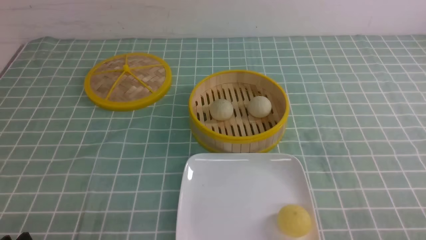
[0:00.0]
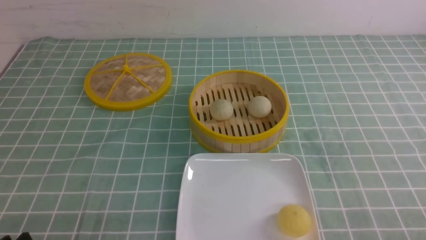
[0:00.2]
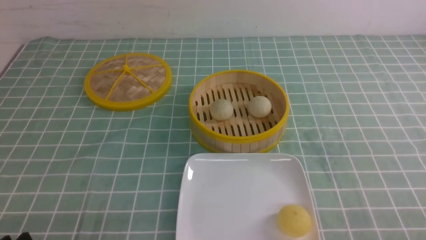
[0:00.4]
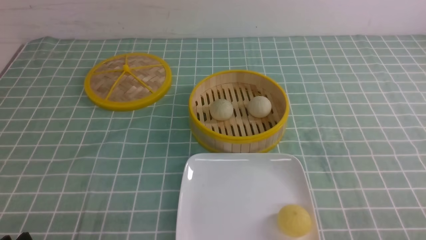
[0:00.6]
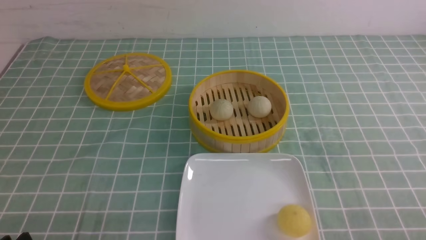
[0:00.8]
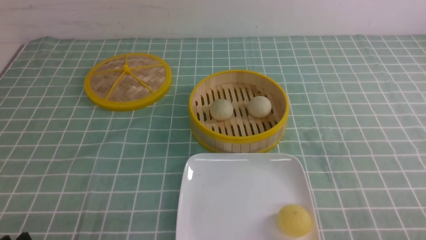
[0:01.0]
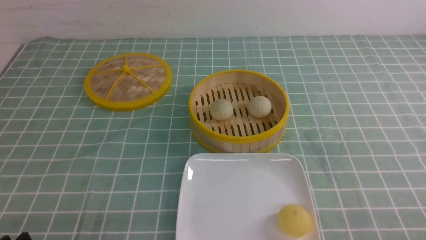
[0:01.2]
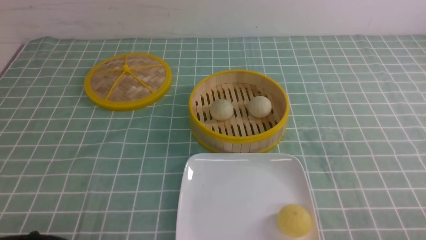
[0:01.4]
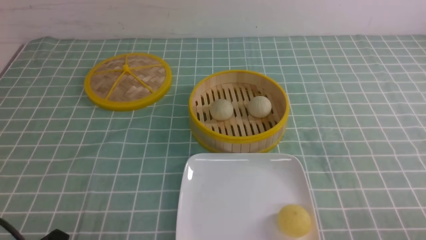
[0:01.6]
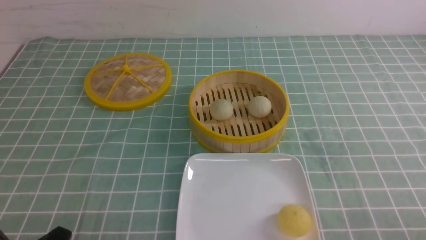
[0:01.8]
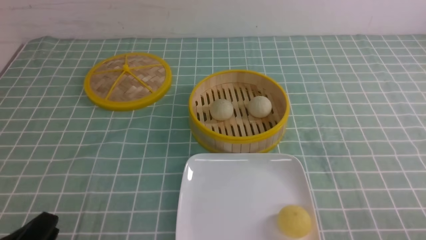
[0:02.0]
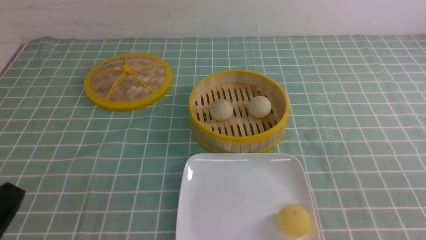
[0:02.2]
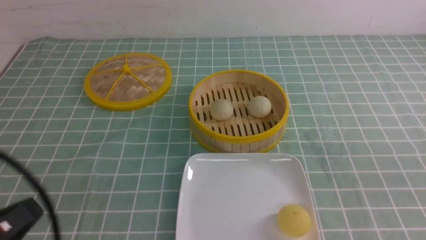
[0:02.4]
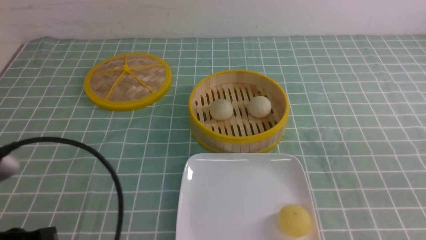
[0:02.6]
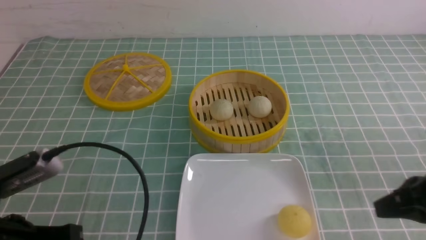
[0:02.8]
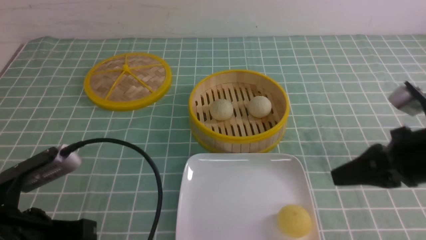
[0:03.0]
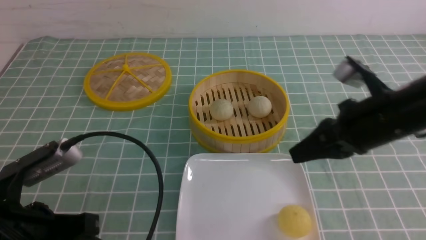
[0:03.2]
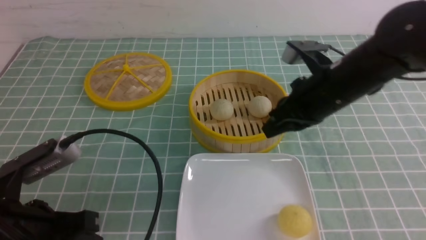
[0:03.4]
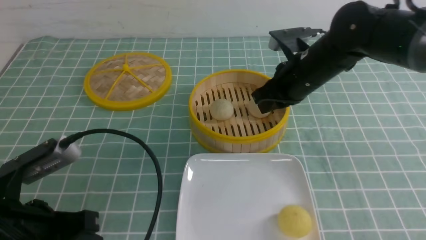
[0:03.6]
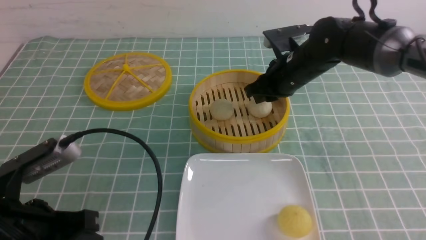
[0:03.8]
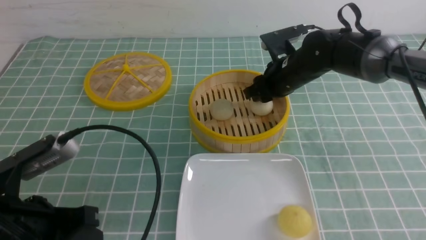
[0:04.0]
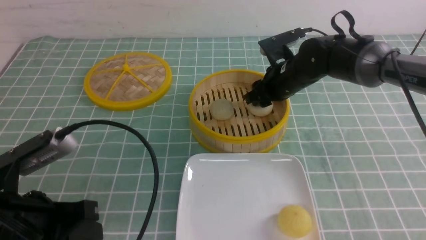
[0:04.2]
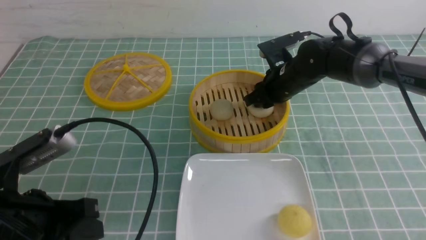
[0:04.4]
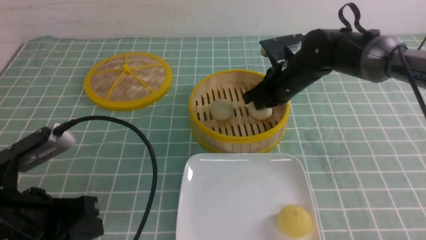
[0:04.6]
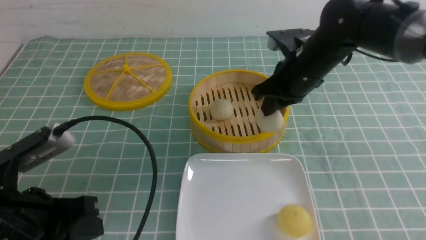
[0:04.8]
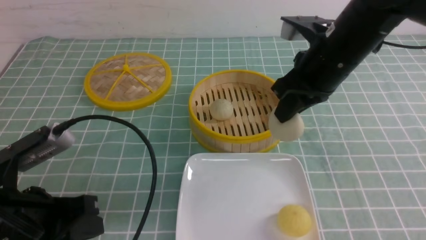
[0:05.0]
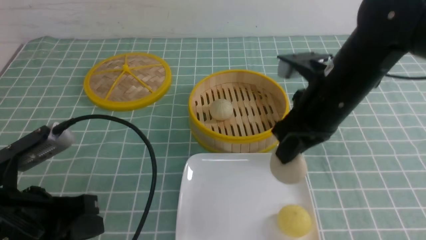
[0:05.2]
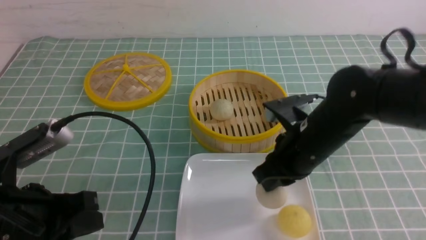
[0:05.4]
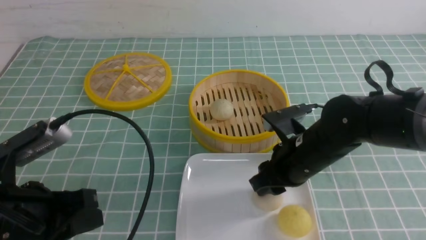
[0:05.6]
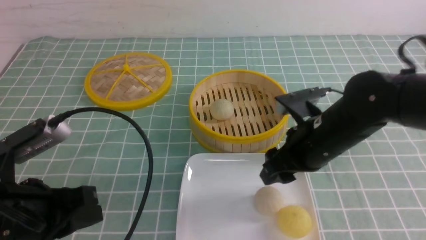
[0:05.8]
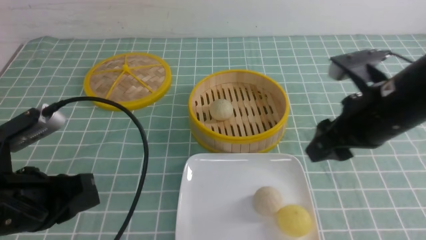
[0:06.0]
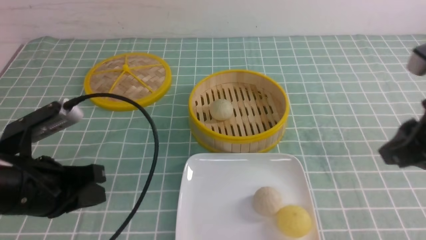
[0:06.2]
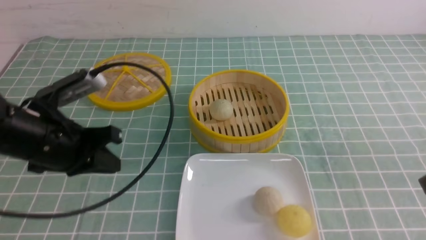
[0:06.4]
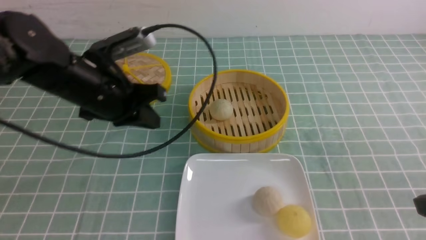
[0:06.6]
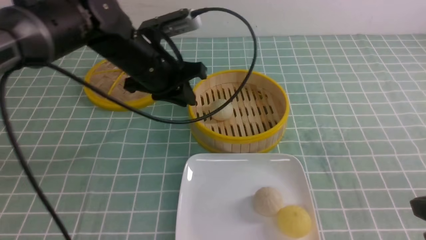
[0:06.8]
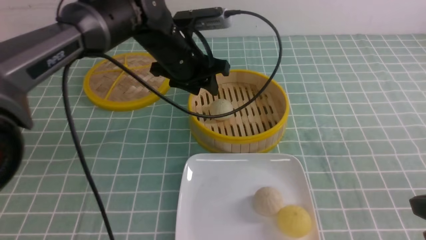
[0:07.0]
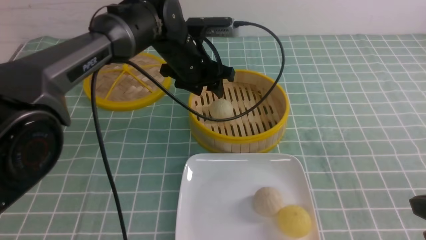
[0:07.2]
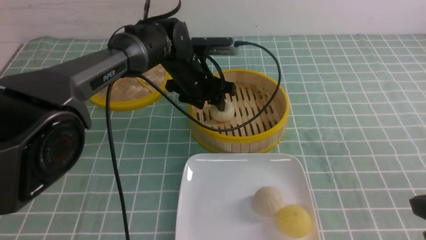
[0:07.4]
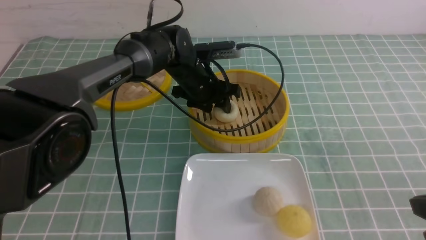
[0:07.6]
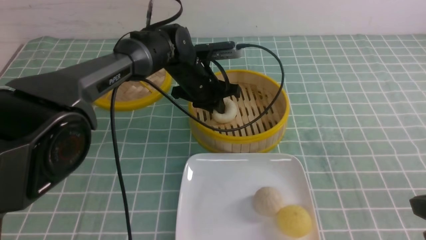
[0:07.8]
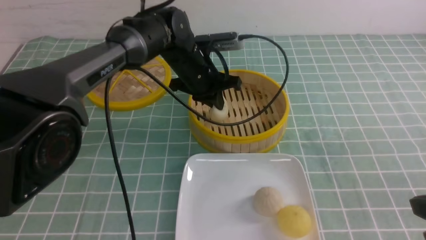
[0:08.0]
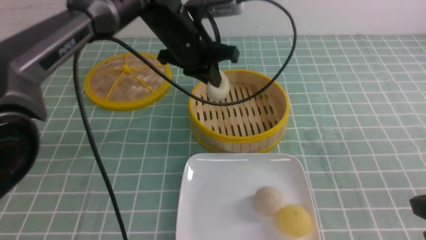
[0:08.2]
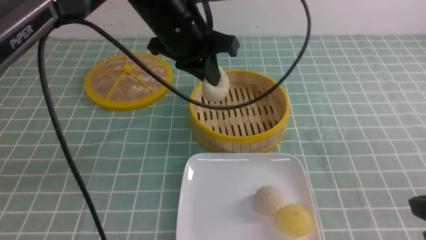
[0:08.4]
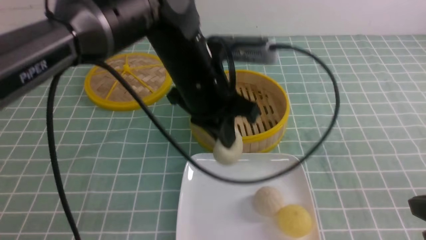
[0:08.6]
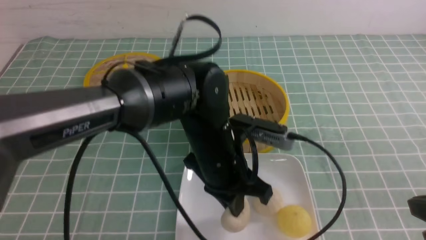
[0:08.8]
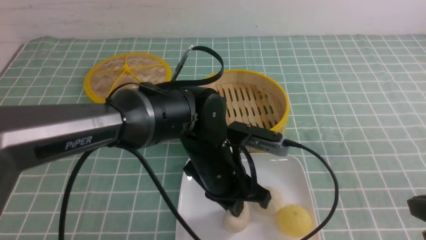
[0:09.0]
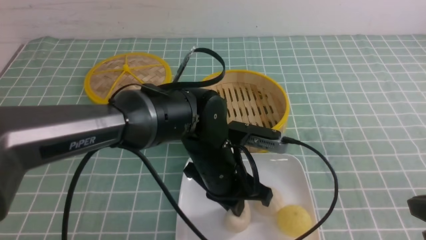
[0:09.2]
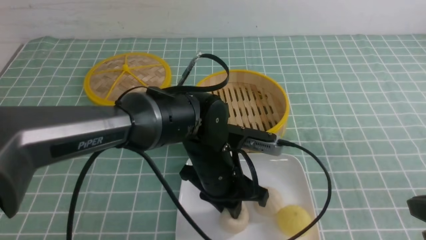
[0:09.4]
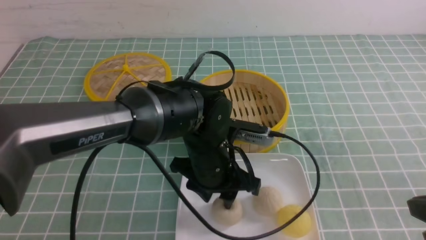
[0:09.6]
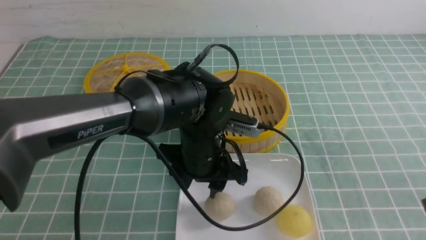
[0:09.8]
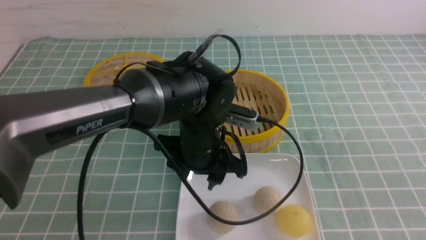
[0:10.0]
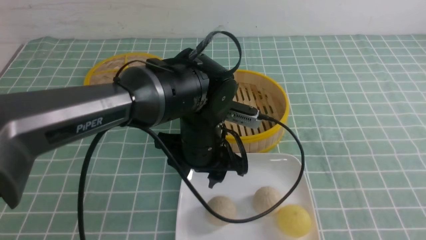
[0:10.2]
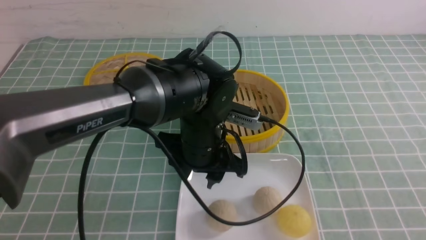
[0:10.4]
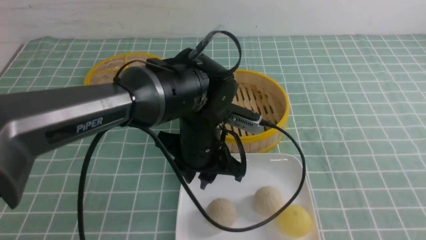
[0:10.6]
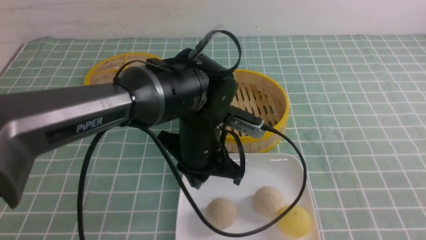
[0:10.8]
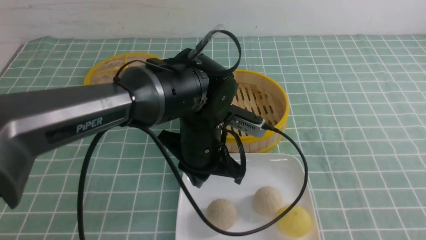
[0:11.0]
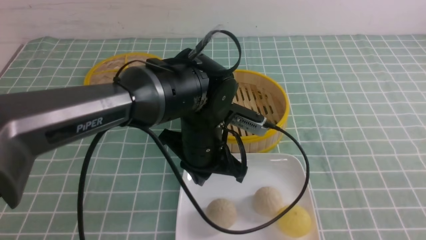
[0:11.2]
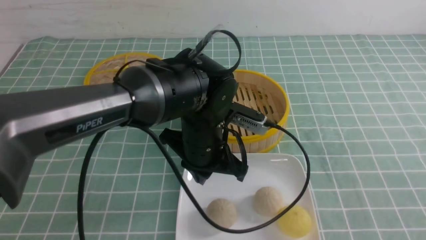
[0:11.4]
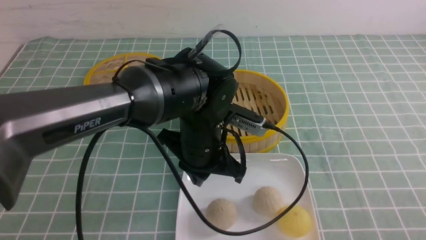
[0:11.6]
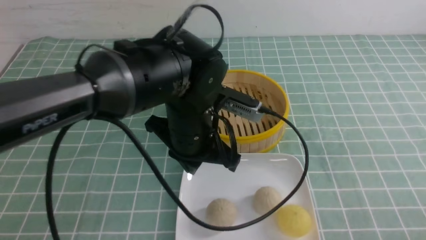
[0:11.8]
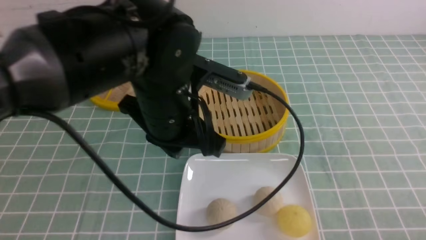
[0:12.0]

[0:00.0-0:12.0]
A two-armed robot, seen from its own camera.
Step, 0:00.0 to 0:04.6: use the right arm to grab the steamed stuffed bun that is closest to it.
Step, 0:04.8 to 0:05.6: use the right arm to put the steamed stuffed bun into the plate.
Step, 0:05.8 to 0:07.8: use the left arm to grab the steamed stuffed bun that is closest to it.
Step, 0:08.0 to 0:09.4: use the left arm to put the steamed stuffed bun into the plate.
0:01.6 to 0:03.0: The right gripper moves forward, upward and to the left, approximately 20 cm, and closes. The left gripper shifts approximately 10 cm upward and forward, and closes.
0:03.0 to 0:04.4: The right gripper moves forward and to the left, approximately 25 cm, and opens up.
0:04.4 to 0:06.0: The right gripper shifts approximately 20 cm backward and upward, and opens.
0:06.0 to 0:07.6: The left gripper is displaced forward and to the right by some 35 cm, and opens. The right gripper shifts some 15 cm backward and to the right, and closes.
0:07.6 to 0:09.0: The left gripper goes some 20 cm backward, and closes up.
0:09.0 to 0:10.4: The right gripper is displaced backward by approximately 10 cm, while the left gripper opens up.
0:10.4 to 0:12.0: The left gripper shifts roughly 10 cm upward, and closes; the right gripper shifts approximately 10 cm downward.

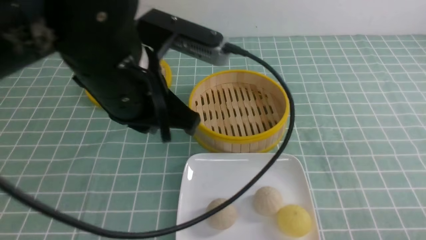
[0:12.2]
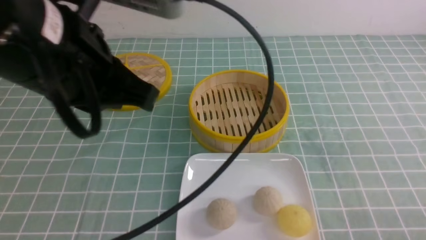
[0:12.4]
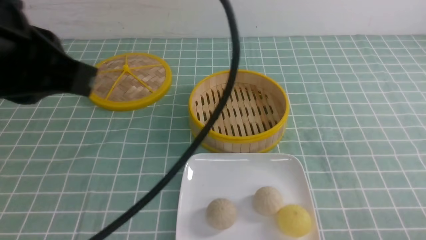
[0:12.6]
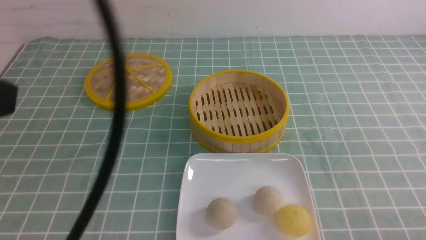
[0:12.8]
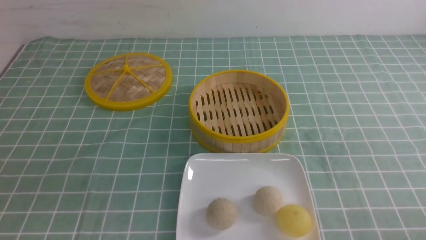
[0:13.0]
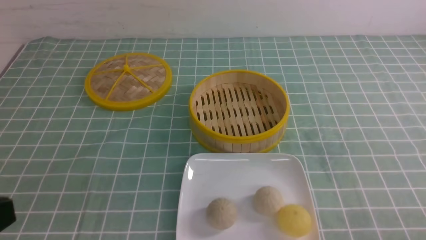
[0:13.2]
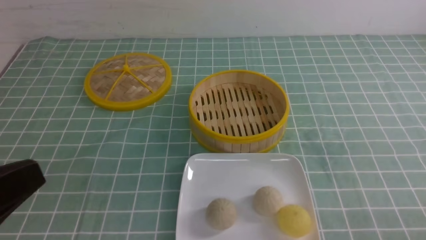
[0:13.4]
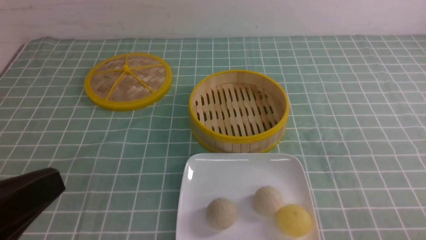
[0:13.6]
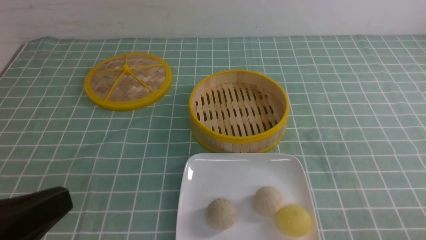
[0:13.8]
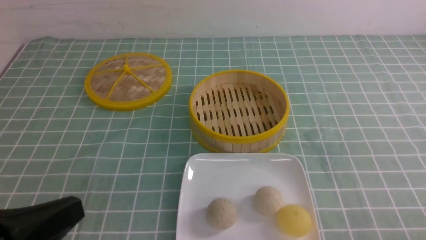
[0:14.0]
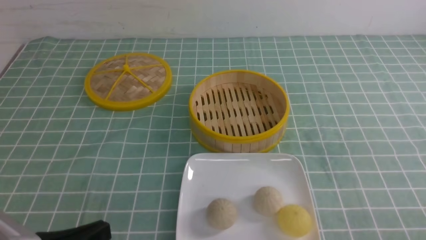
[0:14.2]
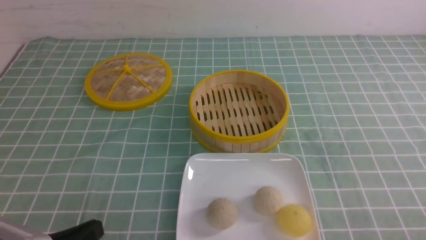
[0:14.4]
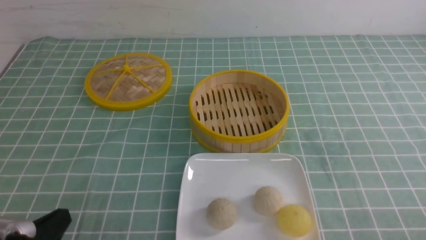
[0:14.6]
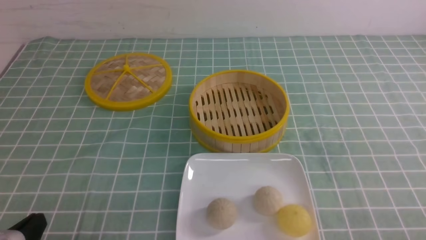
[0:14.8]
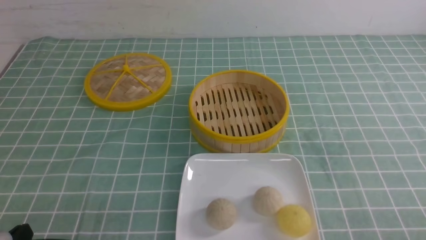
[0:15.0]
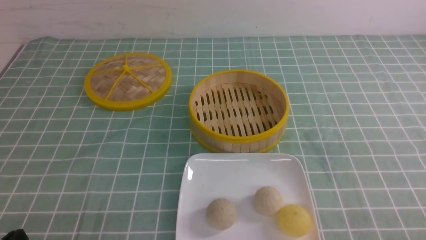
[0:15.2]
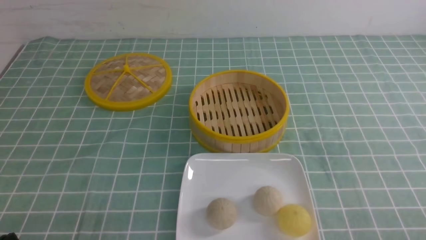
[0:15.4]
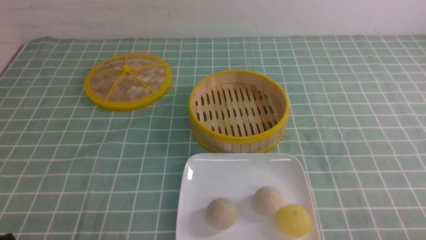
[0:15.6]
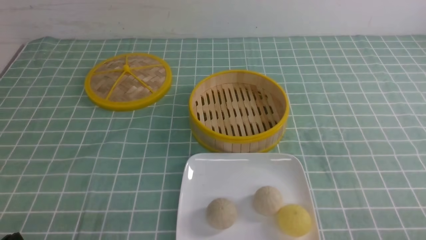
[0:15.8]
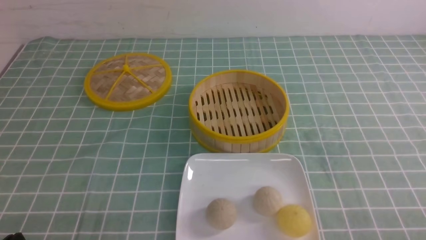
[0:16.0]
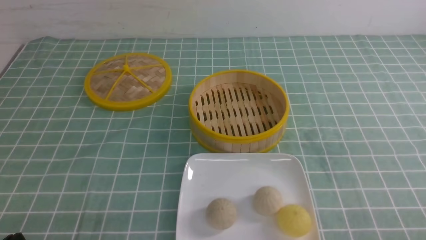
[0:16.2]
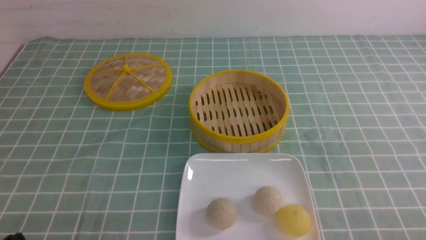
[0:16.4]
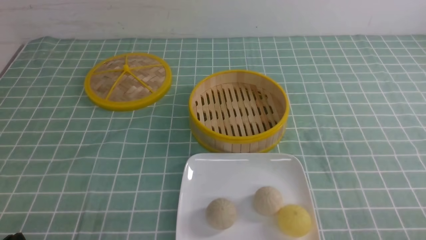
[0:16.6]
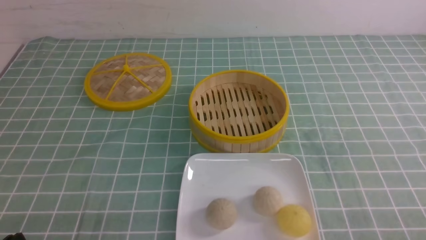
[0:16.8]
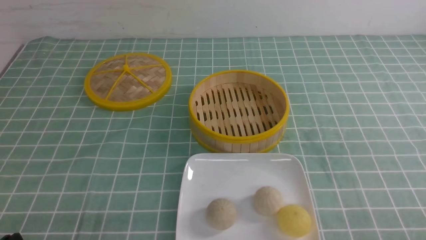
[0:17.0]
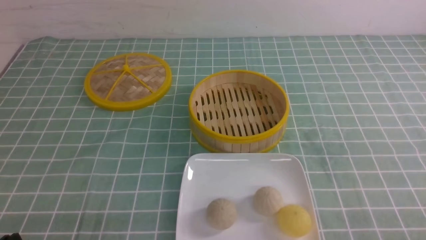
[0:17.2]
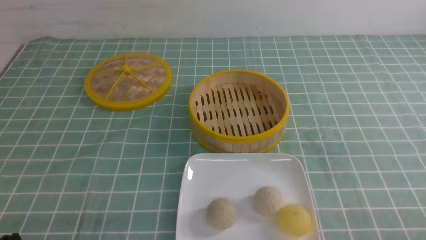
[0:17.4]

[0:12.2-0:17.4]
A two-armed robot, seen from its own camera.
0:12.2 to 0:14.0: The left gripper goes roughly 20 cm backward, to the left and downward.
0:14.0 to 0:15.6: The left gripper travels downward and to the left by some 15 cm.
0:15.6 to 0:17.4: Both grippers stay about where they are.
